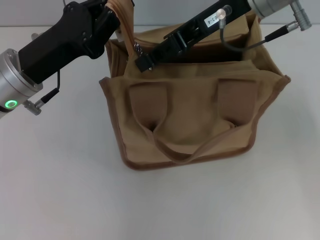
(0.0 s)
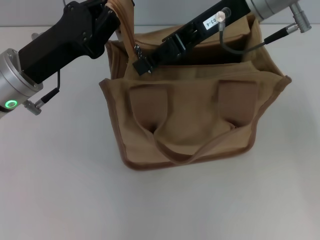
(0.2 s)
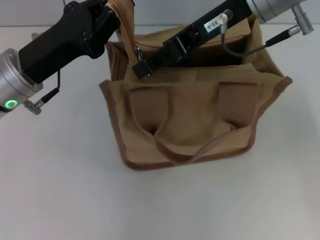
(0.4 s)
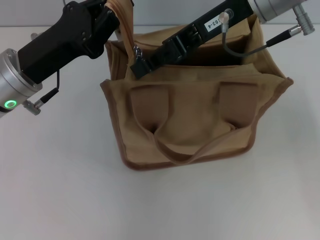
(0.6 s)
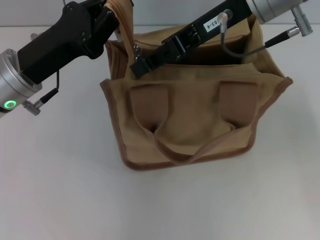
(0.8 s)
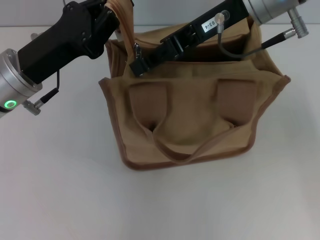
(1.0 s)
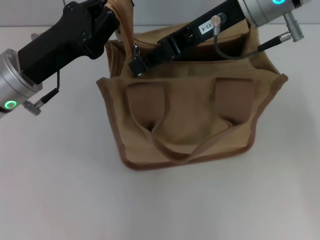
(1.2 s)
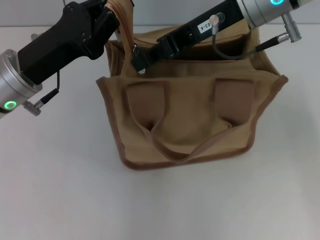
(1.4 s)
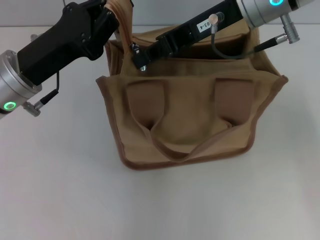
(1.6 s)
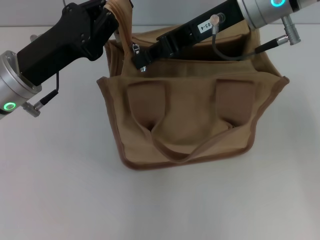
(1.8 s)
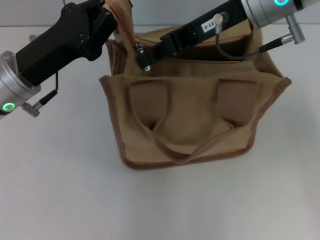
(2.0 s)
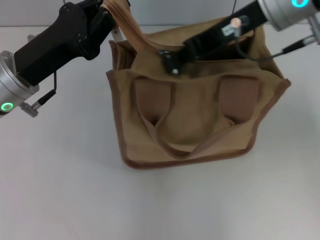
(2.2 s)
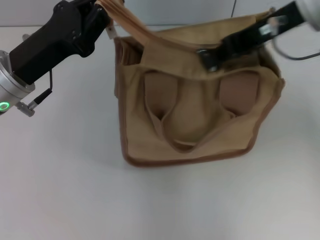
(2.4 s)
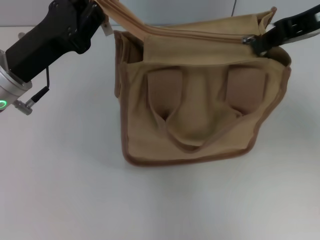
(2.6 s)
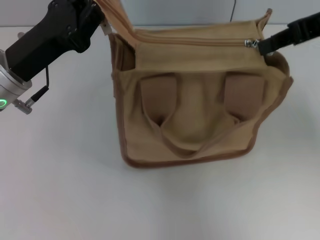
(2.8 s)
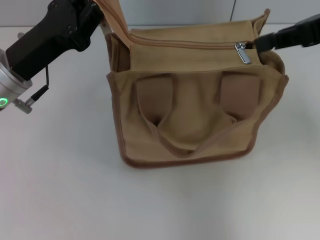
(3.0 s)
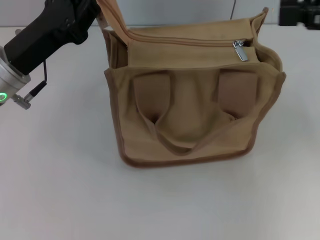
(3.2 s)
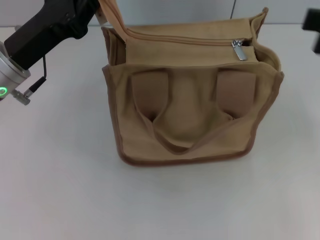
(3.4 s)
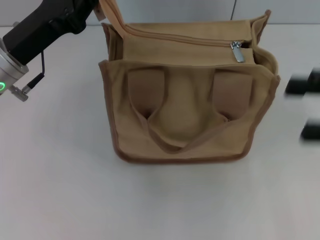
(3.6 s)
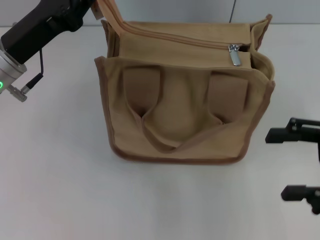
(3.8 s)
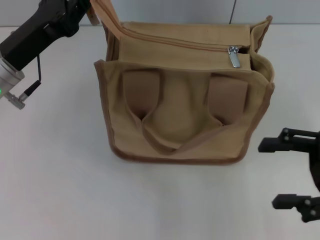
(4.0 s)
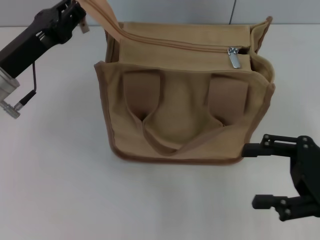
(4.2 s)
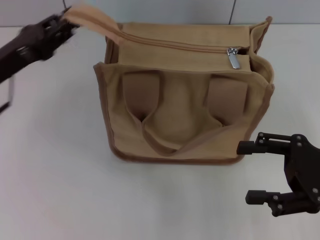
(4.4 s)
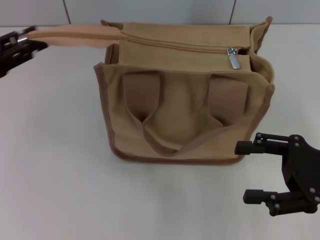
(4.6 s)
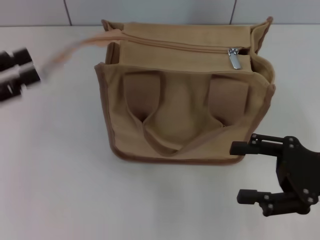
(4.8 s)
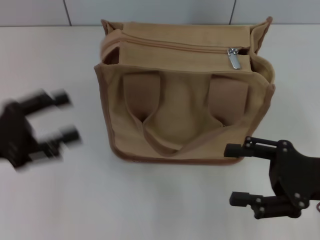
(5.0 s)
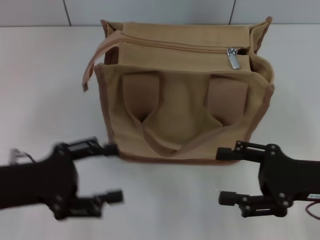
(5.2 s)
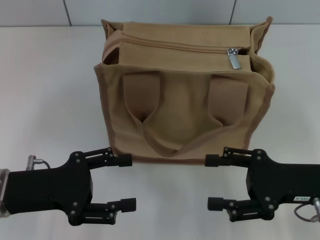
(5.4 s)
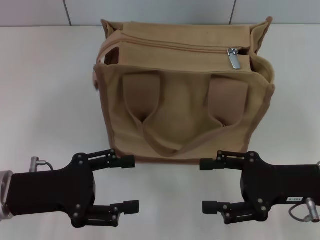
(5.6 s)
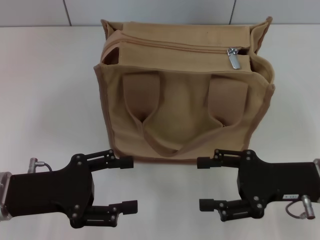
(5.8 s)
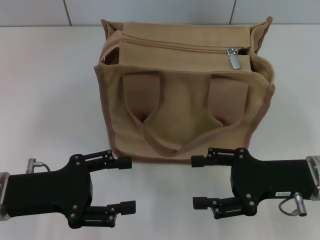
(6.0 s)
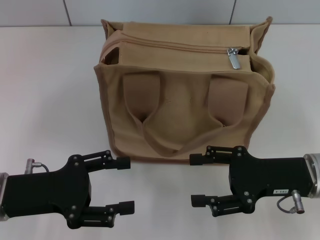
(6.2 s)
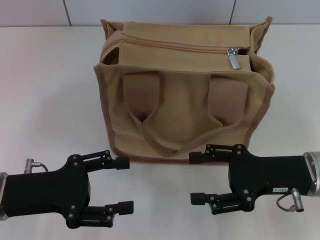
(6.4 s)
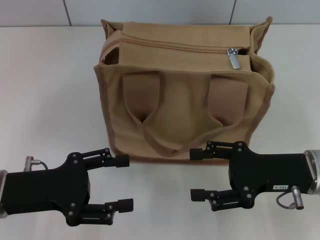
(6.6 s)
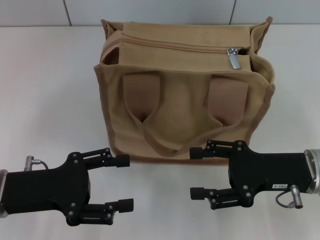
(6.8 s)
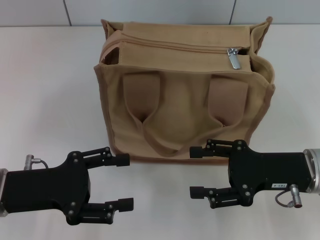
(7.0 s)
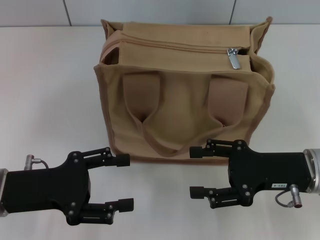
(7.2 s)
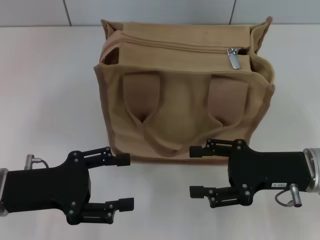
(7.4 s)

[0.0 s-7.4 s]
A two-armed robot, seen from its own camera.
Step, 0.0 to 2.8 s: Pull up the zipper with your right hand.
Step, 3.0 to 4.6 s: Grab the zipper with your left hand.
0.0 to 1.4 s: Neither gripper changes place.
1.4 to 3.0 s: The right gripper travels to the right by about 15 cm.
3.0 to 4.4 s: The left gripper goes roughly 5 cm to the left. The right gripper moves downward and backward, about 20 cm, and opens.
4.4 to 6.0 s: The left gripper moves backward, roughly 10 cm, moves about 5 cm to the left and comes back, and opens up; the right gripper goes some 5 cm to the left.
6.0 to 7.4 s: Neither gripper changes place.
